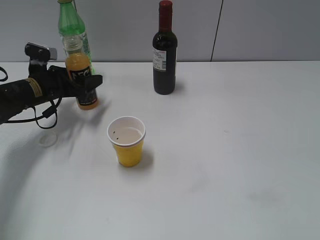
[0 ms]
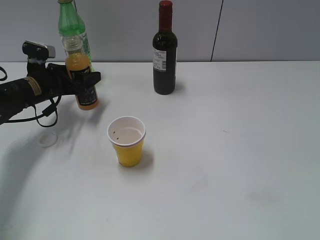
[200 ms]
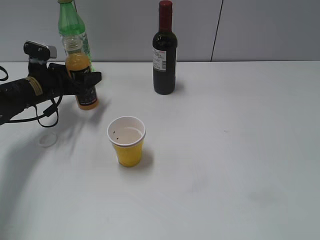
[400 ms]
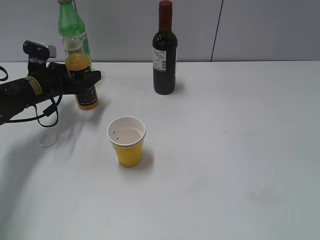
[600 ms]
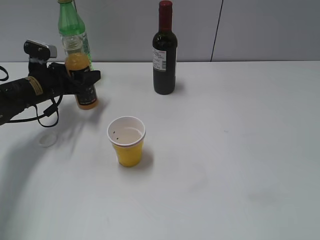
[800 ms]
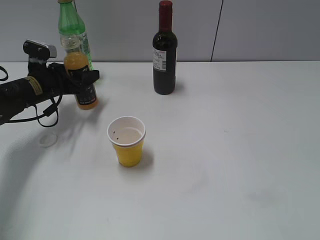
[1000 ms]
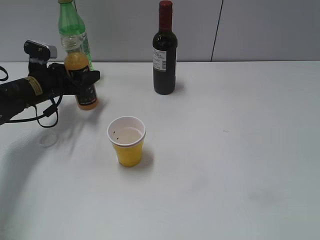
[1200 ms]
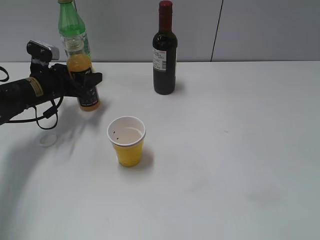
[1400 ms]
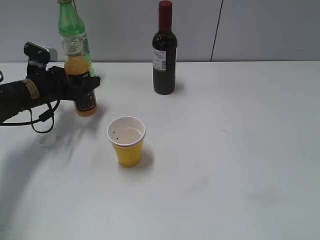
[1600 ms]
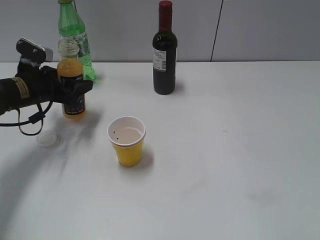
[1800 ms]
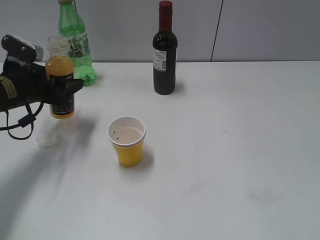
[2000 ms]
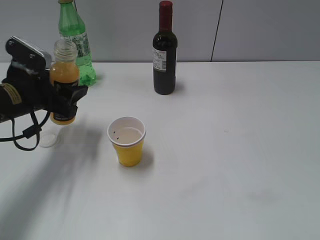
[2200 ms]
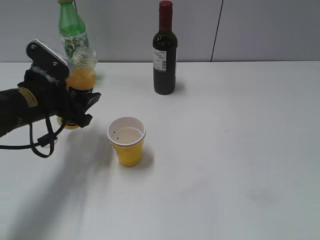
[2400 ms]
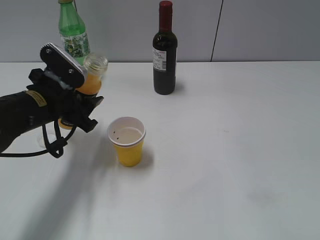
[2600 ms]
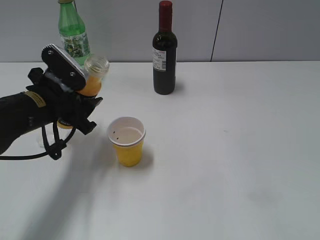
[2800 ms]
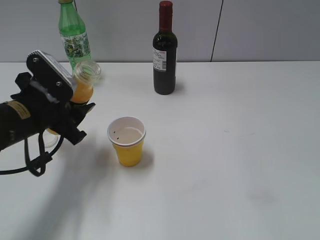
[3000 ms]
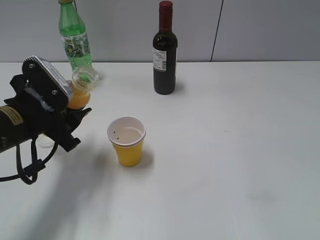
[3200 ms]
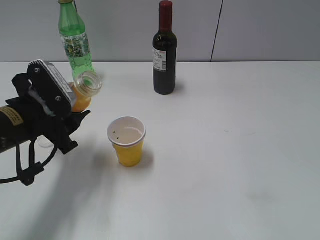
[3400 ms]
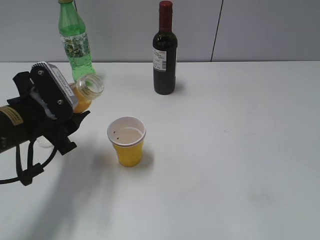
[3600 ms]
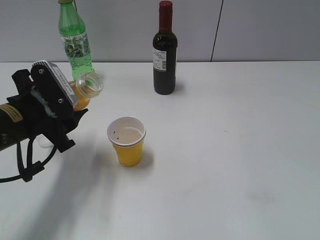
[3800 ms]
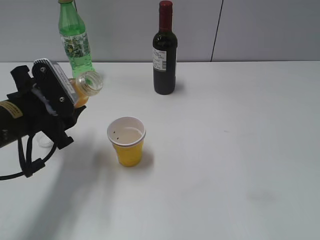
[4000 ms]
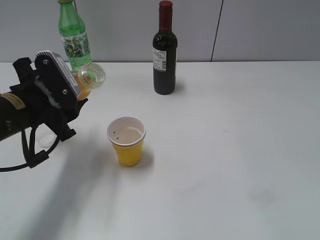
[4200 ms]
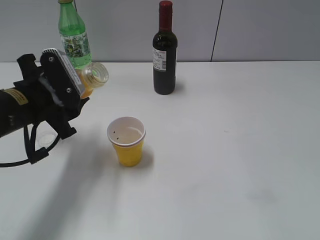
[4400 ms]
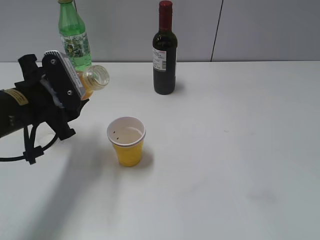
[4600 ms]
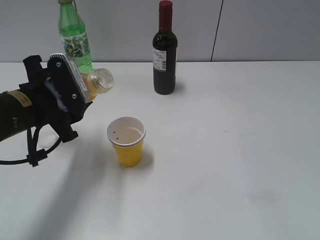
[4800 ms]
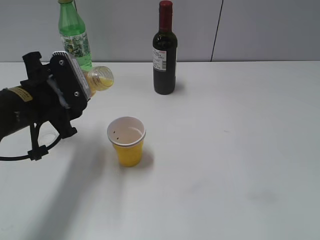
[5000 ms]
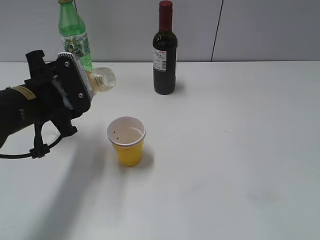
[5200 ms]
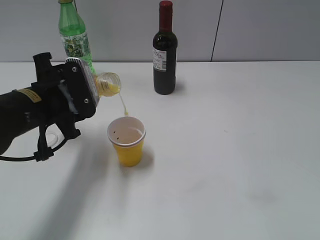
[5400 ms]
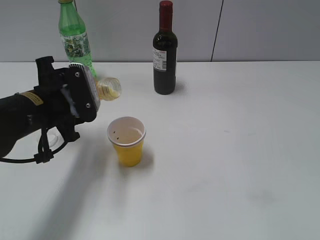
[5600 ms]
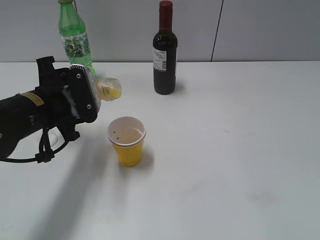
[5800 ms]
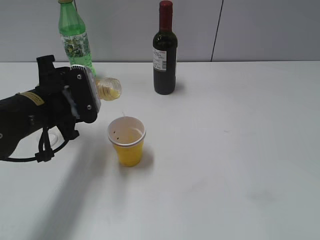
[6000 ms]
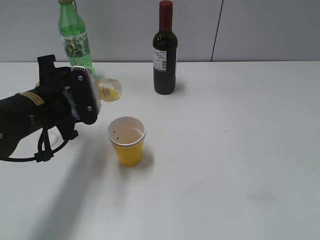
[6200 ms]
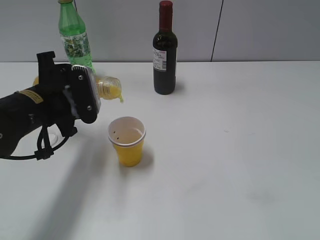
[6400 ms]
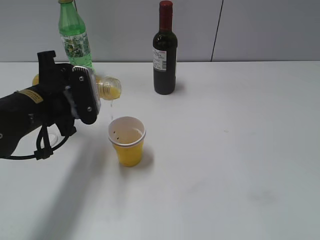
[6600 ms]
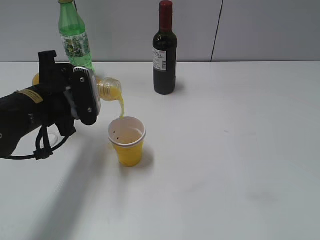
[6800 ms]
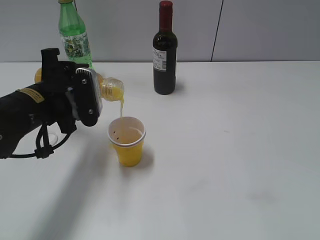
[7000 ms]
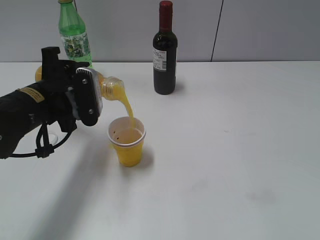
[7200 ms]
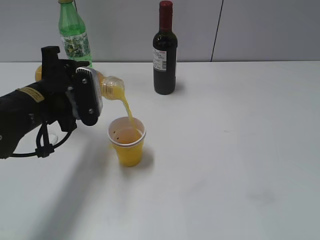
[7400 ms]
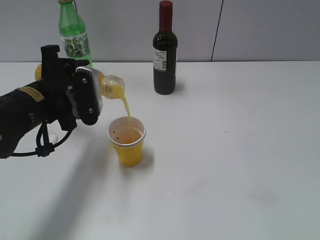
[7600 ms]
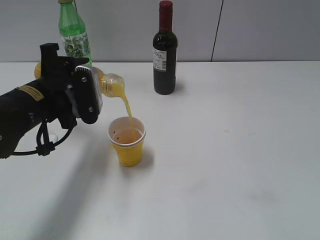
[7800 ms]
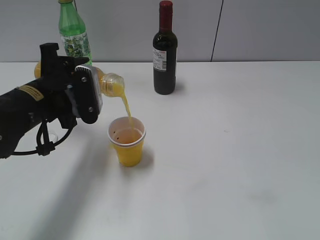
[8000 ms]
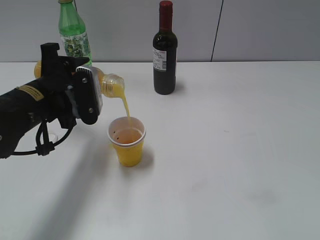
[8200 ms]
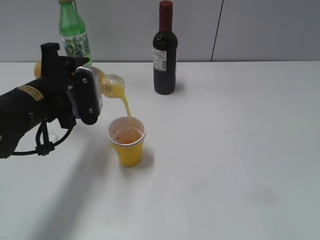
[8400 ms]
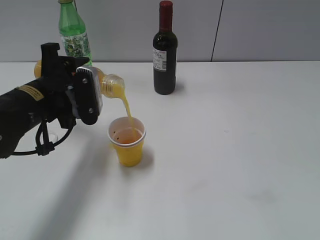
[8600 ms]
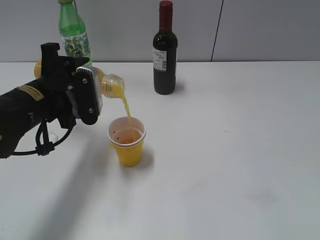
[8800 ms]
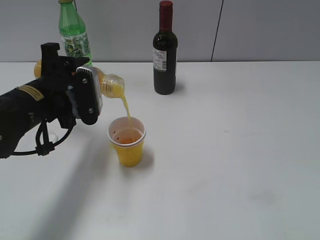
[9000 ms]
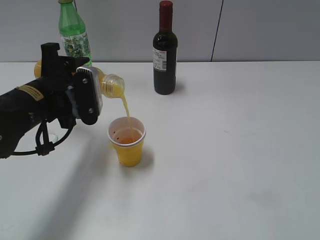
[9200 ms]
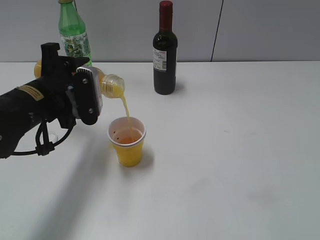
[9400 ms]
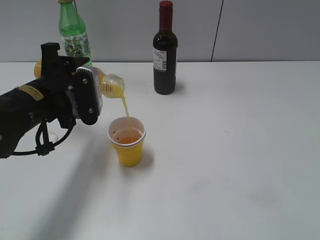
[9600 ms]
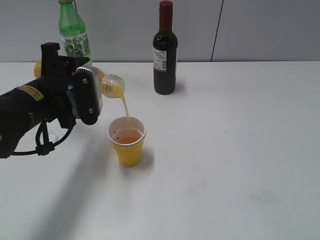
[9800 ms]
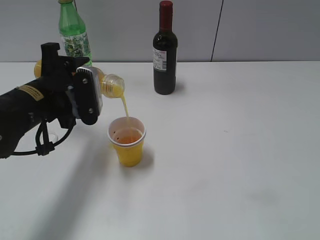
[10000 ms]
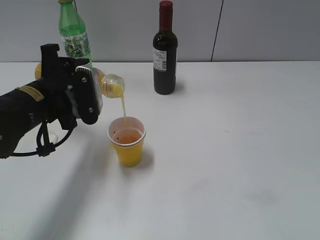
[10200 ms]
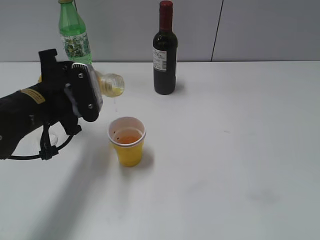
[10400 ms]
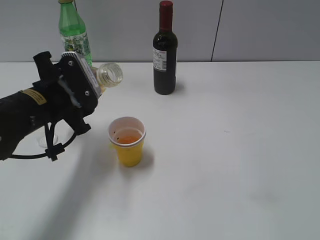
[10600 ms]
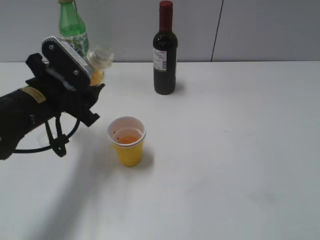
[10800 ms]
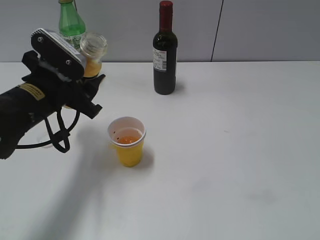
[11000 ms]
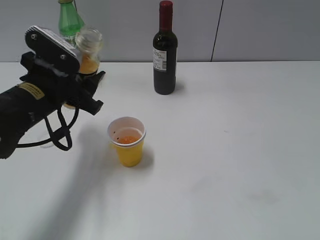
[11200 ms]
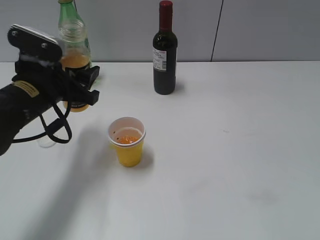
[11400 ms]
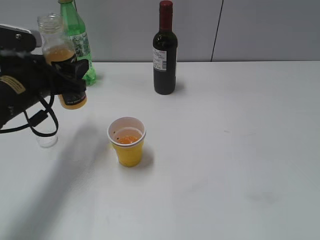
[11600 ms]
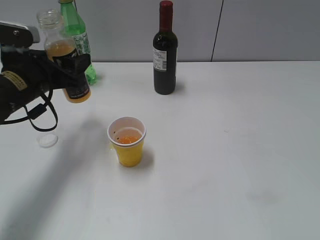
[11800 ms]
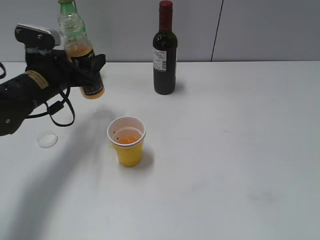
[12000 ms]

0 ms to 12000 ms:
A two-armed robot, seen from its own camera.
Step, 1600 ms to 10400 ms: Pour the orange juice from bottle to cup with left gripper.
0 ms to 1600 ms: The left gripper closes its fingers.
1600 ms to 3000 ms: The left gripper heads backward, covering about 15 cm.
4400 ms to 6000 ms: The grippers make only small movements.
6000 ms to 7600 ms: The grippers move only a little.
7600 ms to 9000 ms: Neither gripper changes place.
9000 ms to 10400 ms: The grippers make only small movements.
10400 ms to 12000 ms: The left gripper travels forward by about 5 cm.

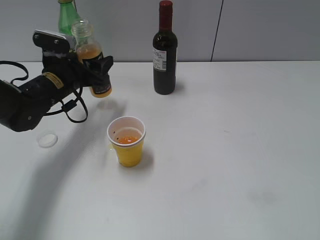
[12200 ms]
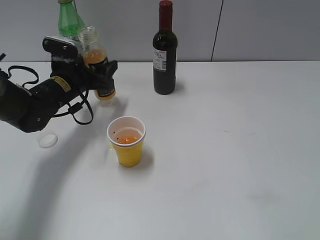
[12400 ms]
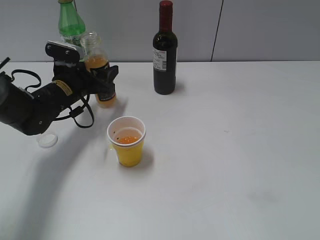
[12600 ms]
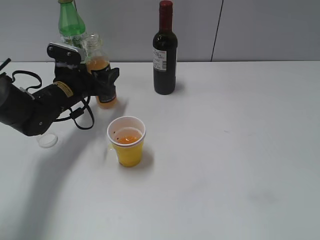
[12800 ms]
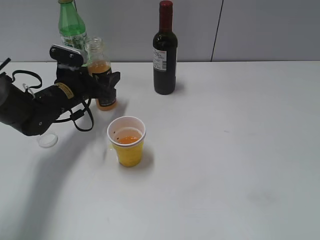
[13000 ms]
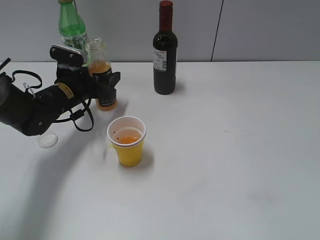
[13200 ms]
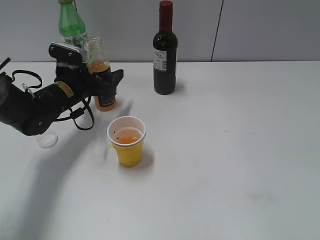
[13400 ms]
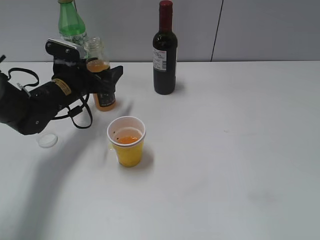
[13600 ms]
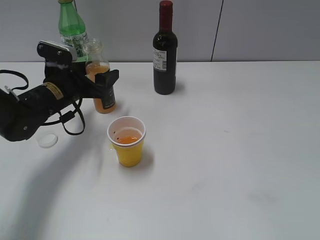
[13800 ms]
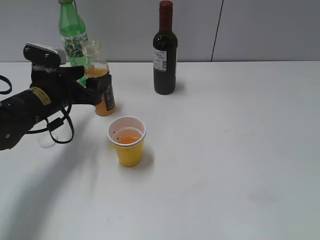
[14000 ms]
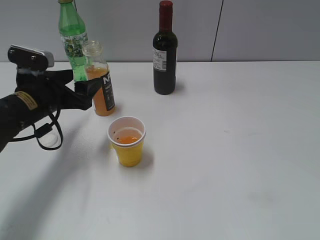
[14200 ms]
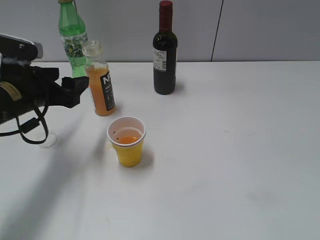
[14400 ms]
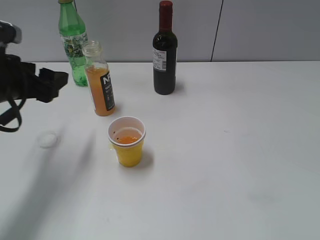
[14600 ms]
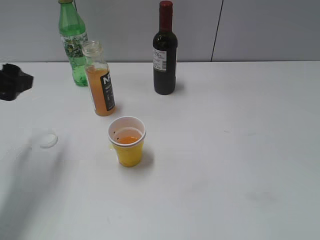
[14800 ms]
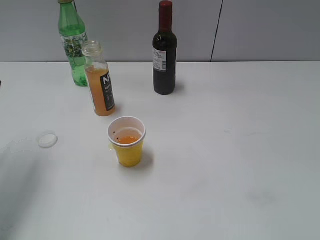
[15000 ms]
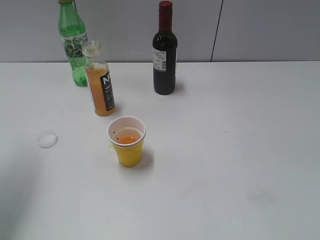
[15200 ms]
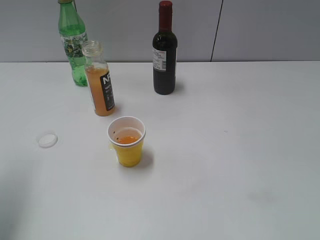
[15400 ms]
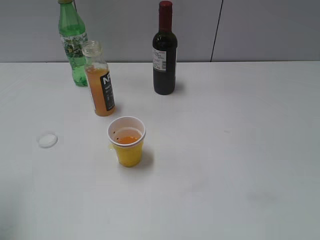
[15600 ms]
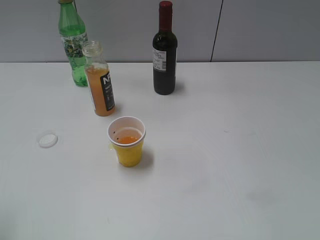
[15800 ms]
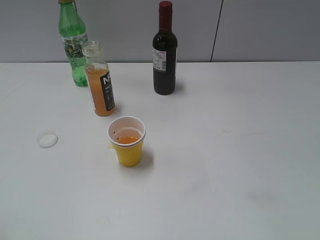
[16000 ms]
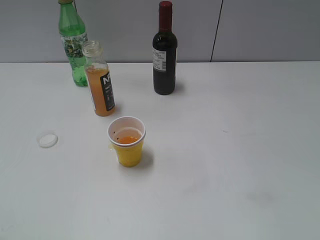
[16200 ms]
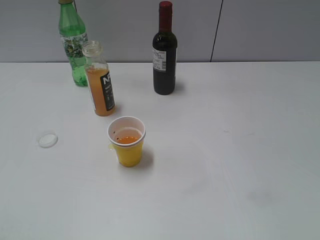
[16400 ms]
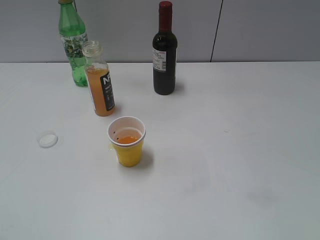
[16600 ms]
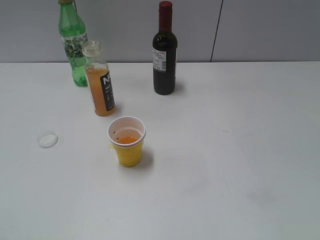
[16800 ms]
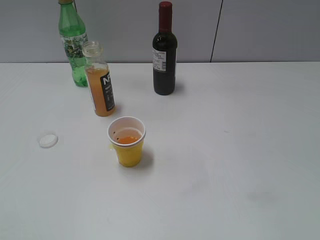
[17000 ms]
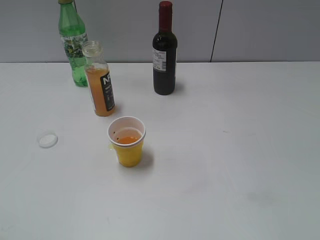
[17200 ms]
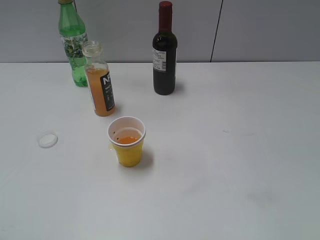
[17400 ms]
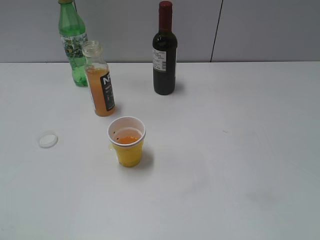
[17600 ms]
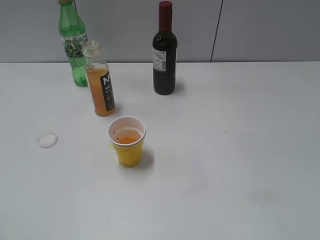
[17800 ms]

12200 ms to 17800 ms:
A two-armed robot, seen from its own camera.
12200 ms to 13600 ms: The left gripper opens up.
13600 ms to 15000 ms: The left gripper heads upward, backward and to the left, covering about 25 cm.
15000 ms to 16400 ms: The left gripper goes about 25 cm backward.
